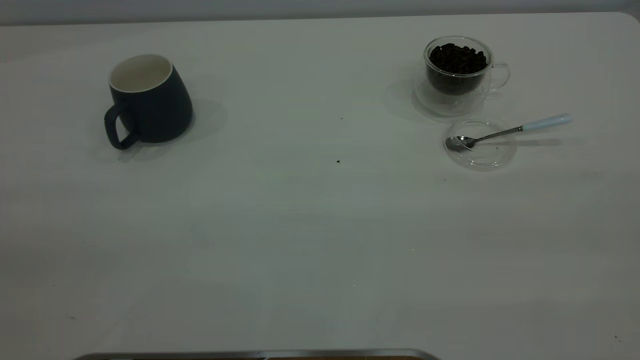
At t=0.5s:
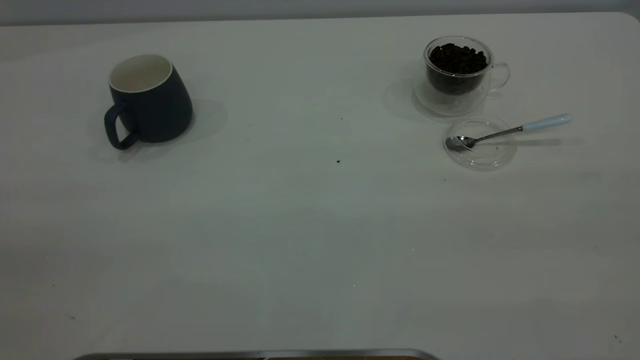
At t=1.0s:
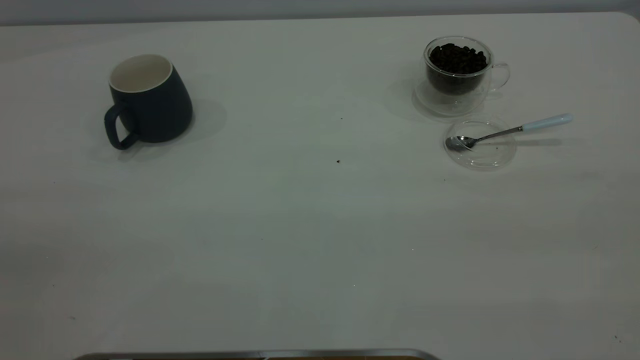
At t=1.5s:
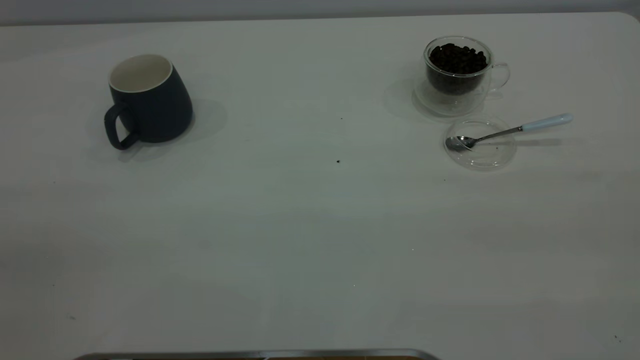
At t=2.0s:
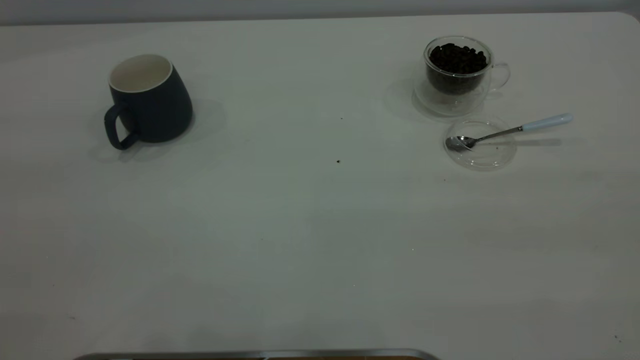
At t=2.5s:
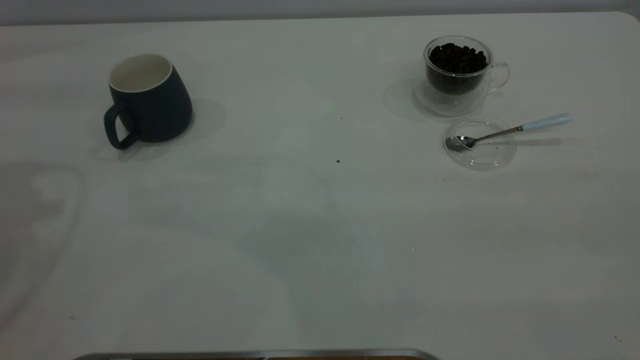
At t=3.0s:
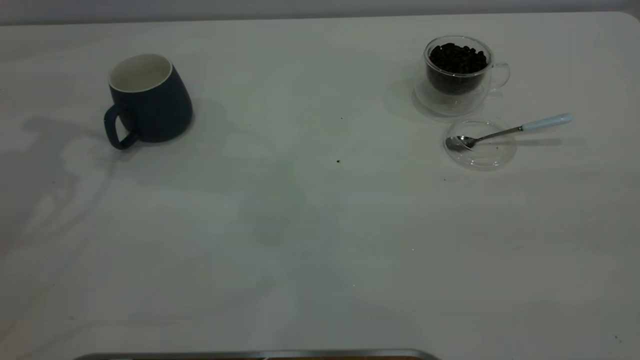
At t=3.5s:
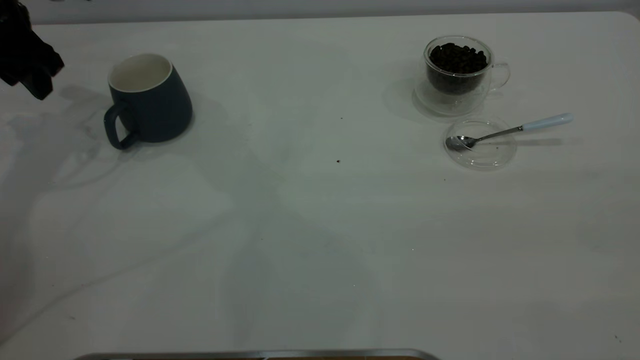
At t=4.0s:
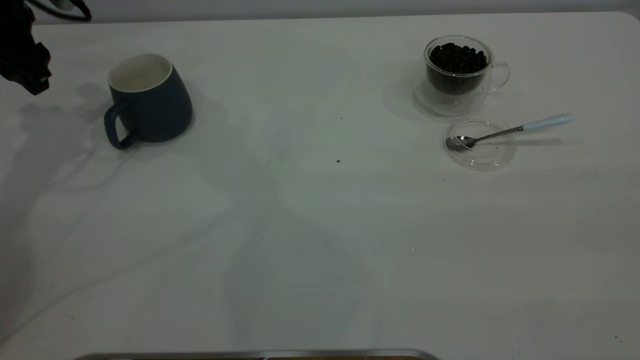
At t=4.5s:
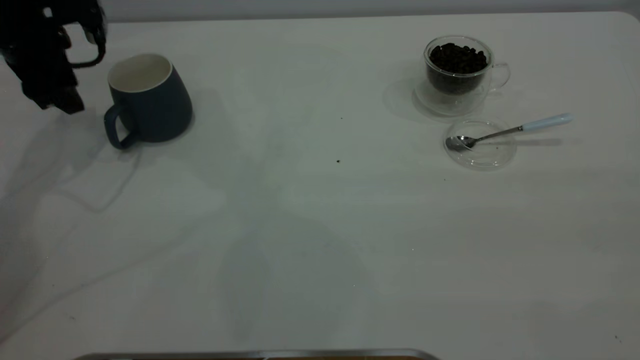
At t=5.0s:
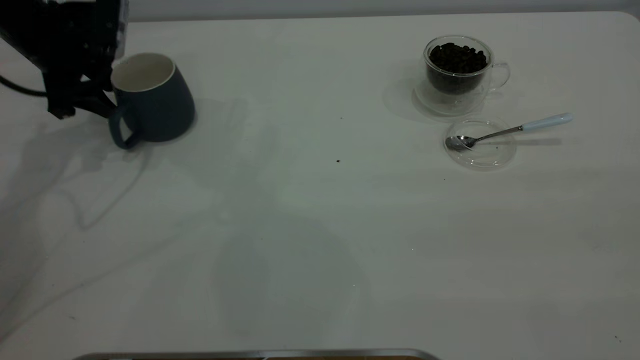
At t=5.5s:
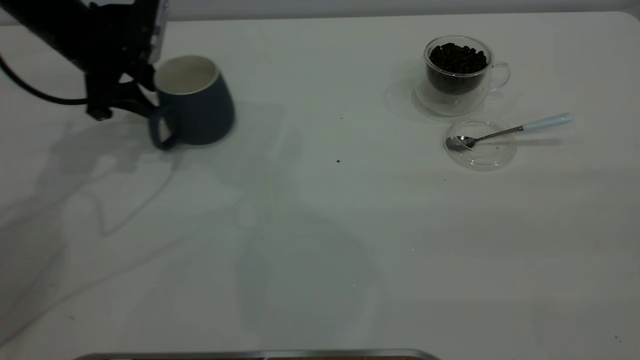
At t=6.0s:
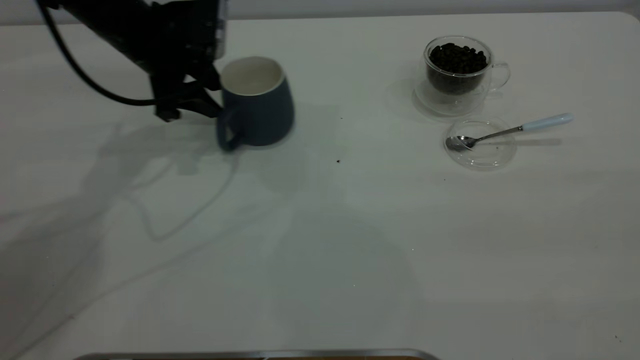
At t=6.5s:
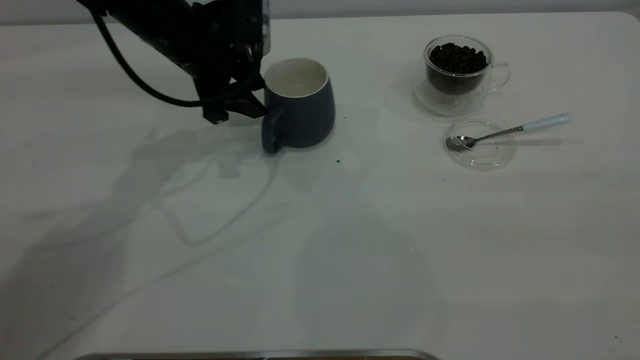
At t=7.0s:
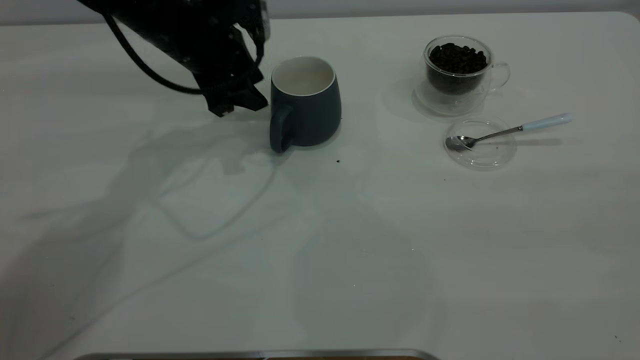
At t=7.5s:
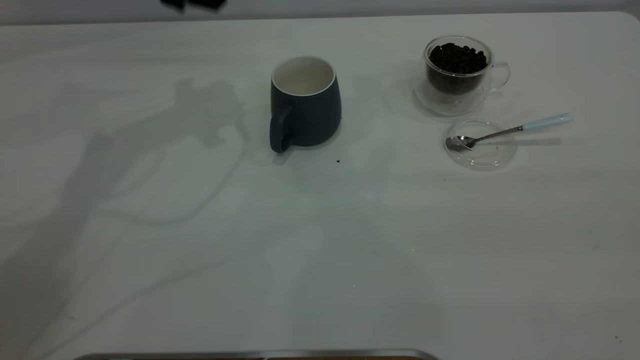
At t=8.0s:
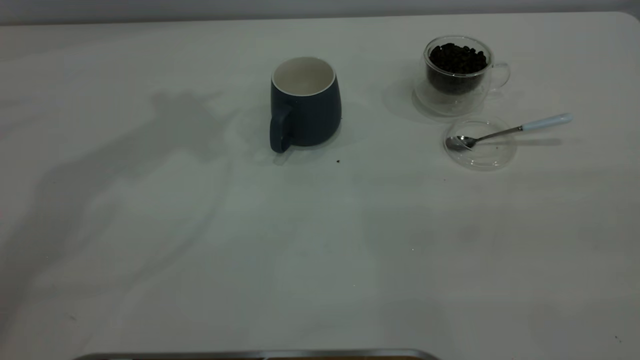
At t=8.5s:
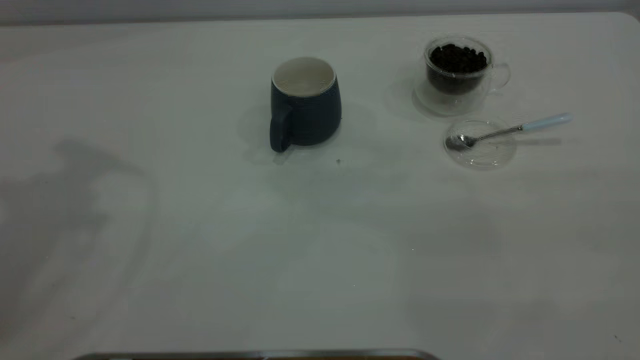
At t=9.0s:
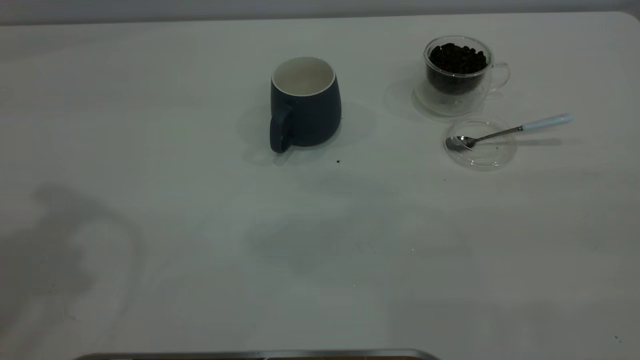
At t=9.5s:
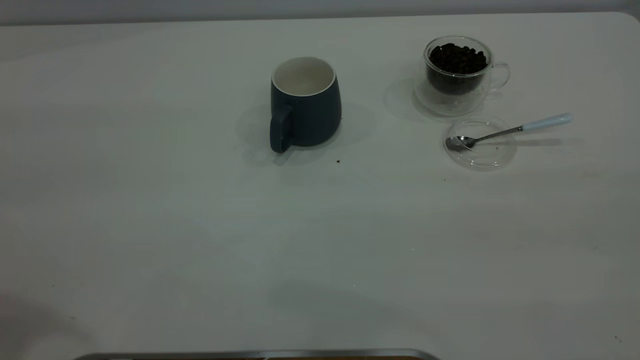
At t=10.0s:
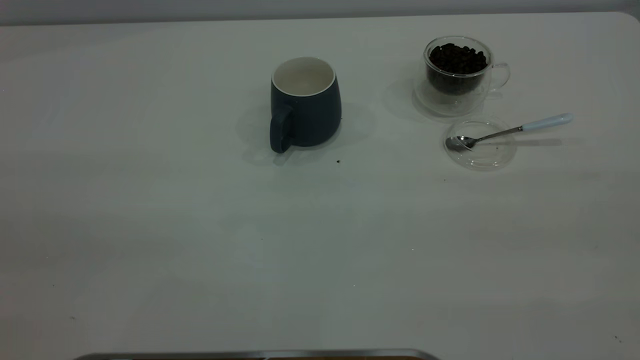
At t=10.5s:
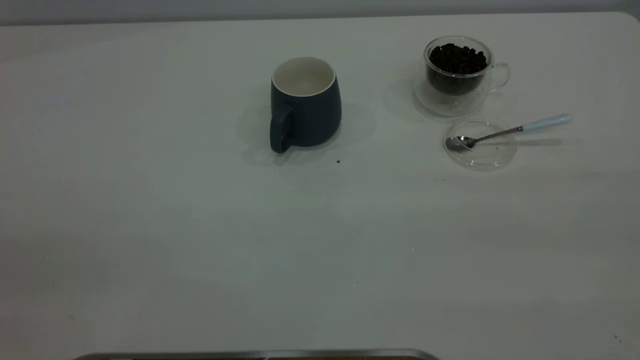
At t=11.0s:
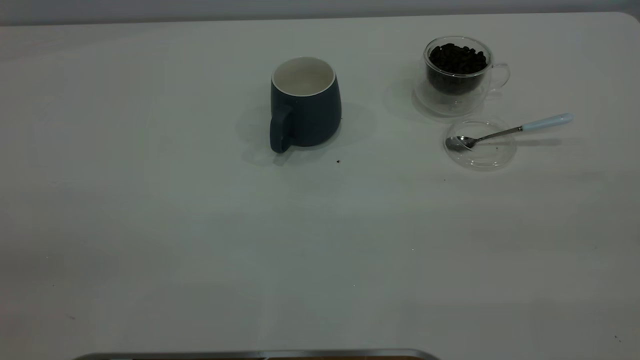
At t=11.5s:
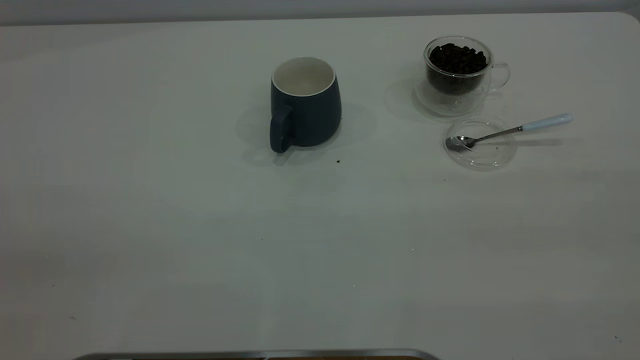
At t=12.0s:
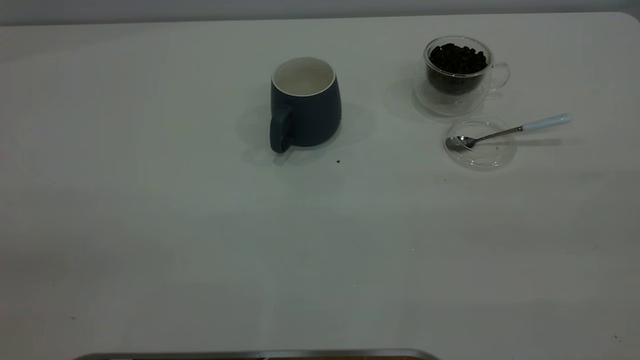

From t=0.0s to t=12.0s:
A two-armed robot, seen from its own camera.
Task of the whole recording: the left gripper place the grey cup in the center of the table, the right gripper take the blue spoon from the cup lid and scoop out the coffee beans from the coffee cup and put them into the grey cup, the right gripper put the spoon back into the cup lid.
Step, from t=0.0s to t=7.0s: Move the cup to the center of view.
From t=2.0s to t=4.0s: The left gripper shifts about 40 cm forward and downward.
From t=4.0s to t=6.0s: The left gripper moves to the right, approximately 15 cm.
From t=6.0s to t=8.0s: The left gripper moves upward, roughly 30 cm.

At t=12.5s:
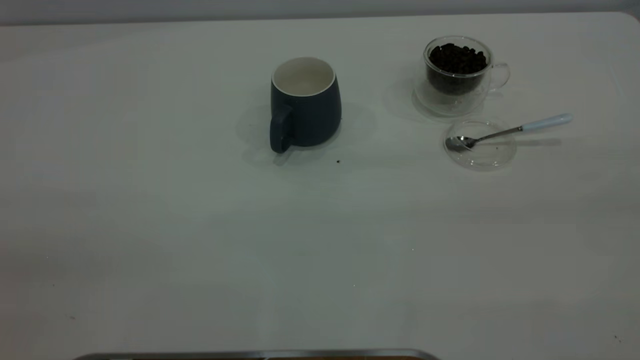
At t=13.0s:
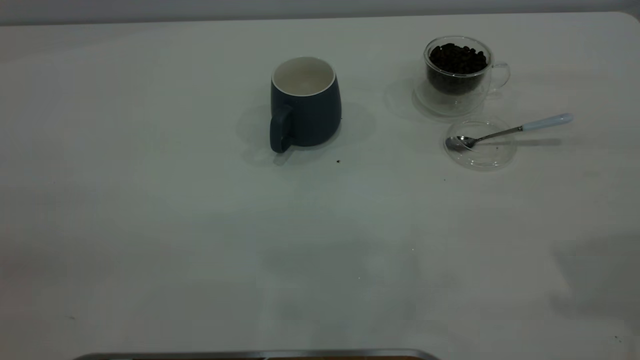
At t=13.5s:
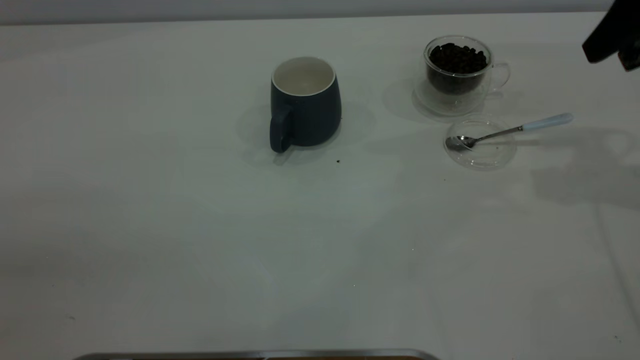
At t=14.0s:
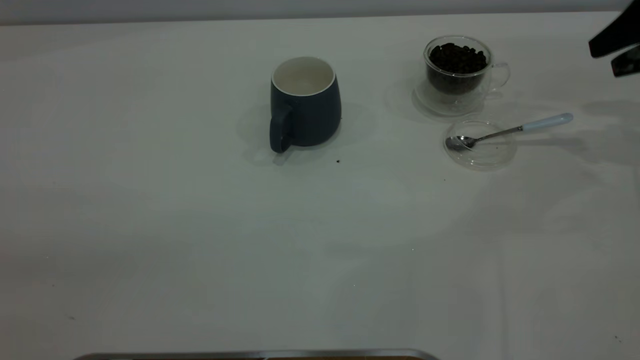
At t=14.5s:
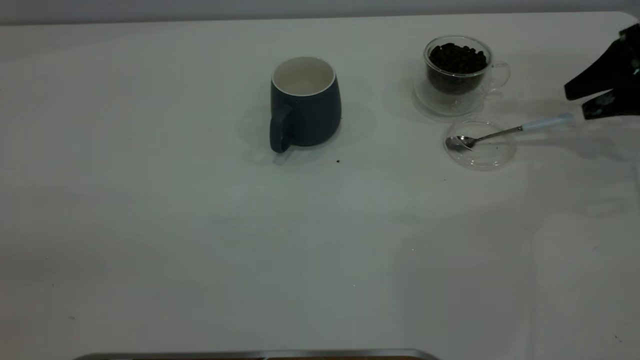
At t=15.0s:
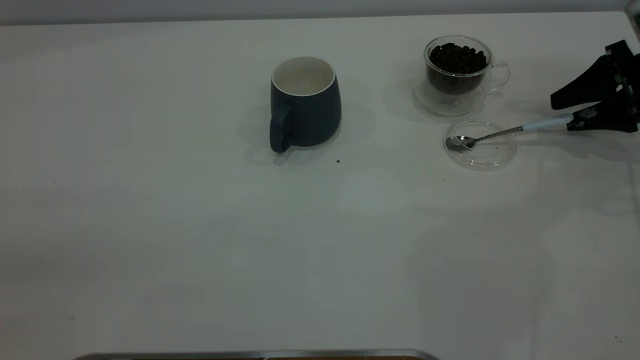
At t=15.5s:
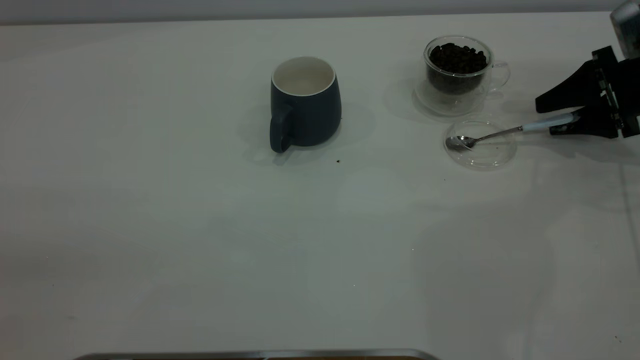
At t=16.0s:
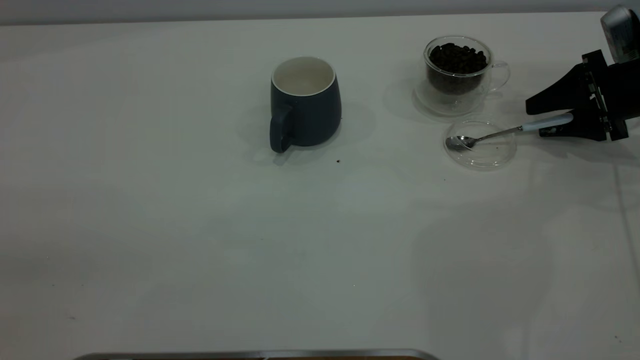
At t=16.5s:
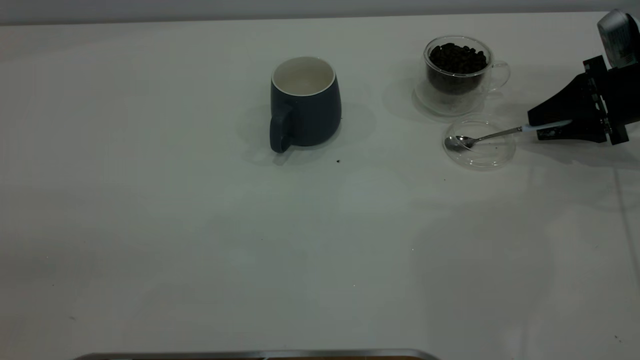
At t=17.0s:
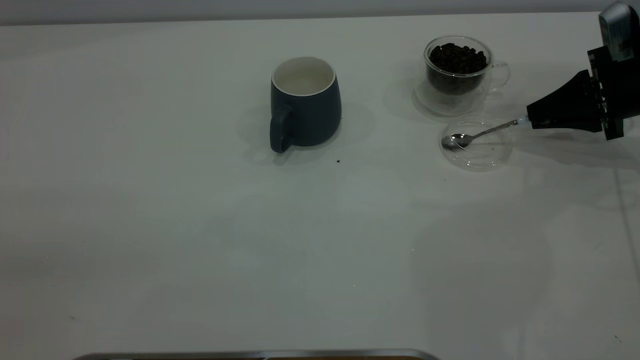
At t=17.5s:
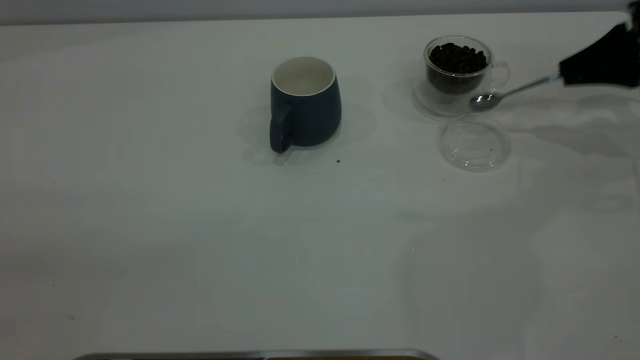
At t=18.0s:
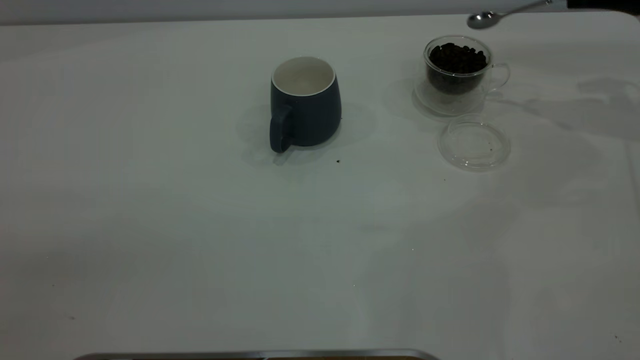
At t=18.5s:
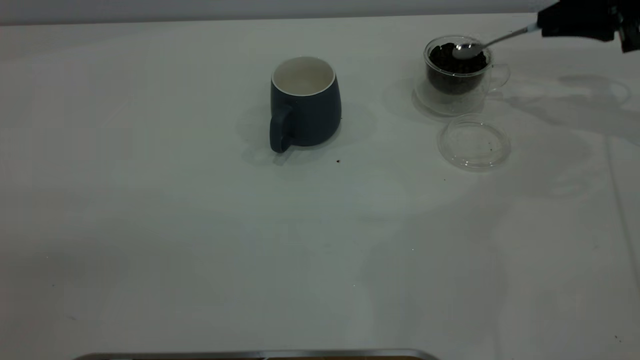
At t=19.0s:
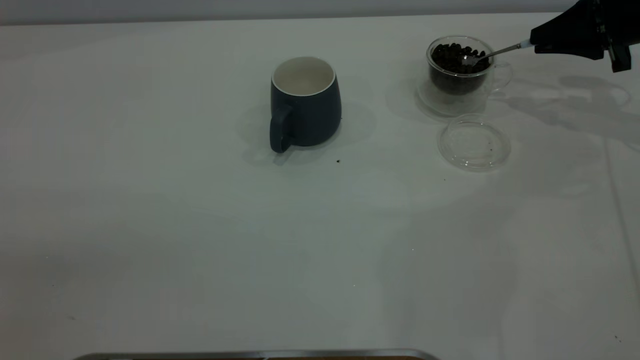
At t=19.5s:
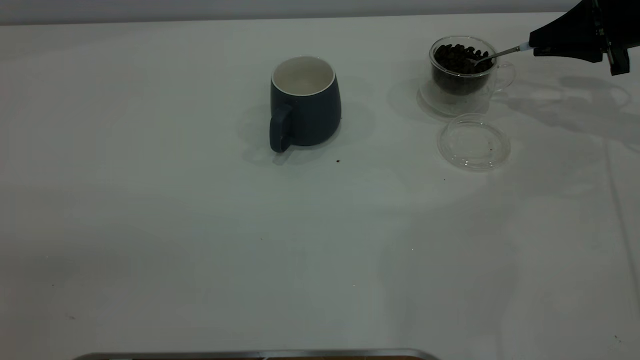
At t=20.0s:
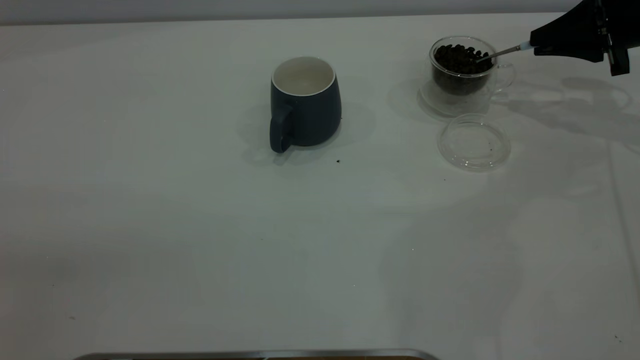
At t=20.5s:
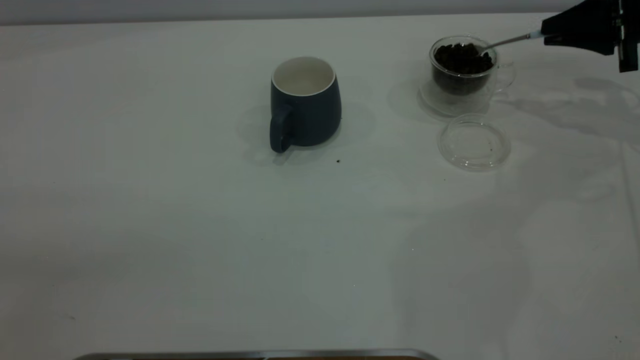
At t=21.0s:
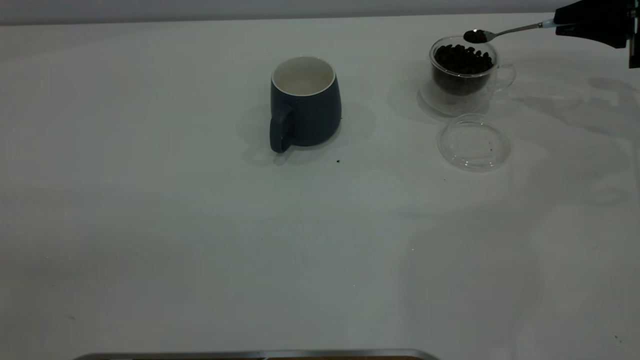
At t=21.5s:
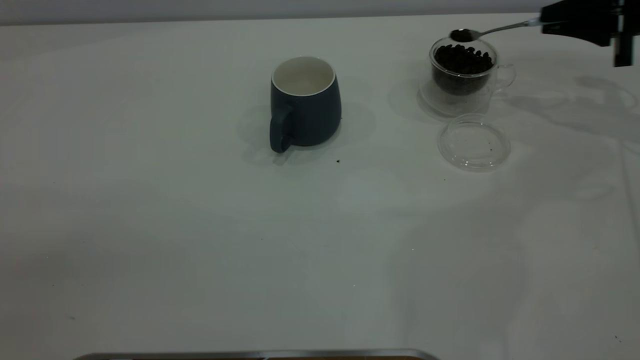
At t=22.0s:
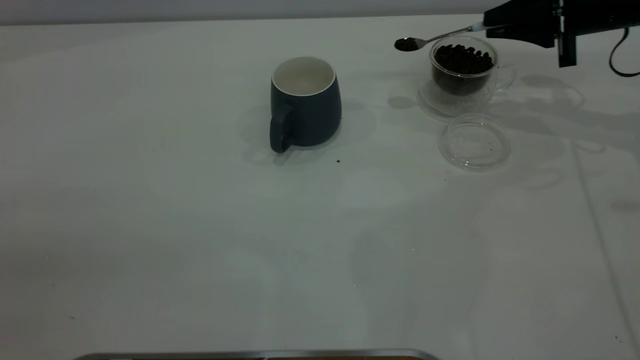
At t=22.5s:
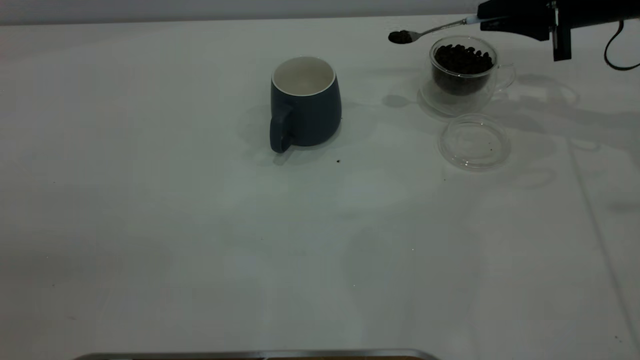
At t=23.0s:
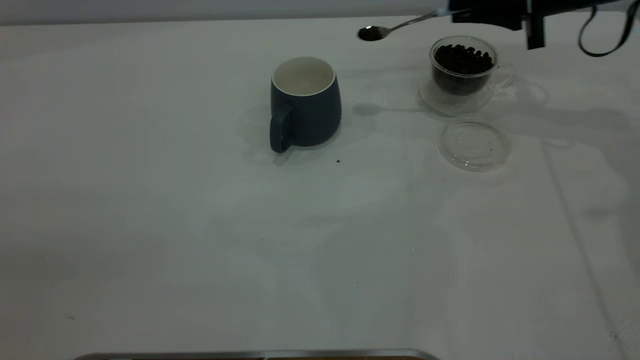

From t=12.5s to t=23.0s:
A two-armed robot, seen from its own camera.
Task of the whole recording: the left gripper place the grey cup in the center of the table, the right gripper take the blue spoon from the cup lid and scoop out the coffee beans from the coffee cup and put them into the grey cup, the right gripper put the spoon back into the cup lid.
Step, from t=12.5s to t=17.5s: Pick up the spoon.
From t=12.5s to t=14.5s: The right gripper travels forward and downward by about 50 cm.
From t=14.5s to t=16.5s: The right gripper ends up some 5 cm from where it was, and closes up.
From t=16.5s to t=19.0s: The right gripper goes about 5 cm upward, and closes up.
From t=19.0s to t=21.0s: There are only small adjustments of the grippers.
From t=21.0s to t=23.0s: The right gripper travels to the left by some 15 cm.
